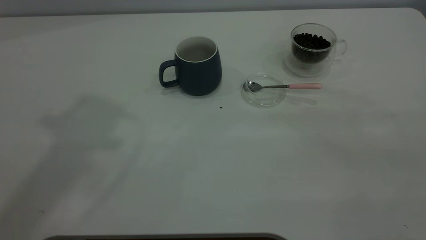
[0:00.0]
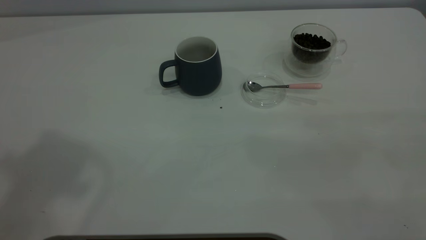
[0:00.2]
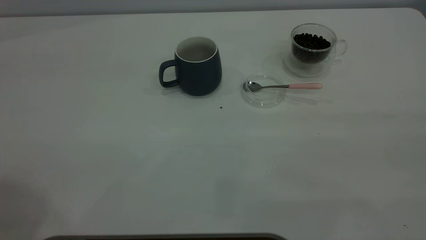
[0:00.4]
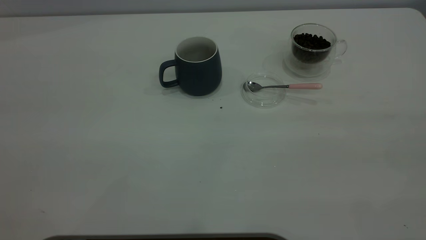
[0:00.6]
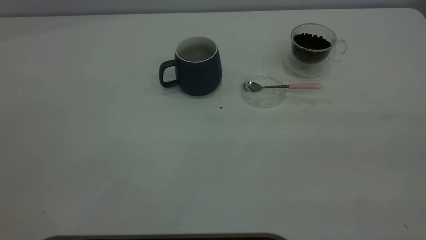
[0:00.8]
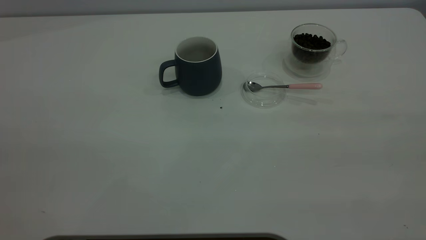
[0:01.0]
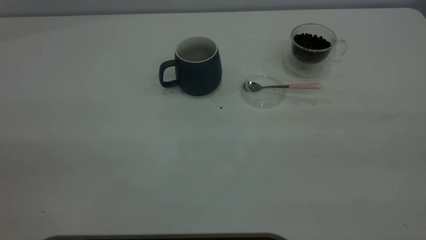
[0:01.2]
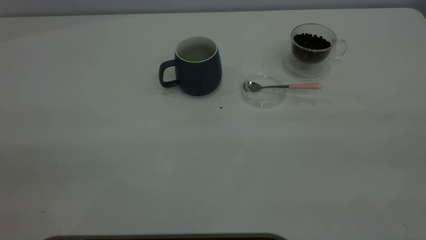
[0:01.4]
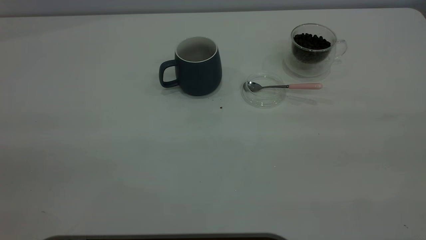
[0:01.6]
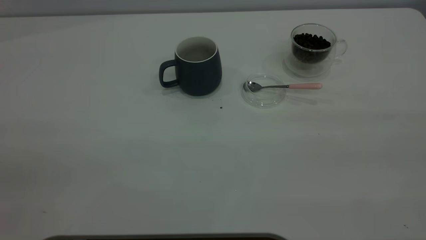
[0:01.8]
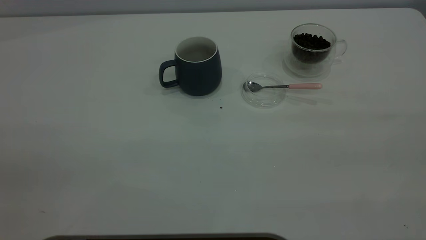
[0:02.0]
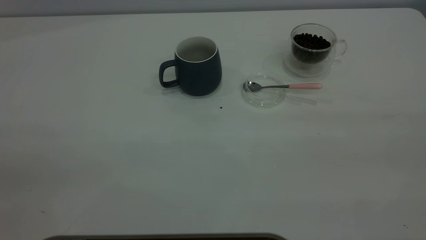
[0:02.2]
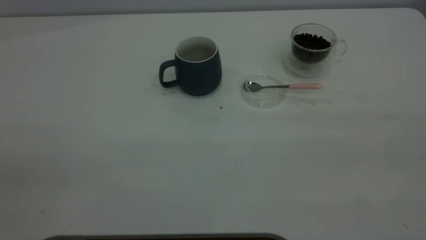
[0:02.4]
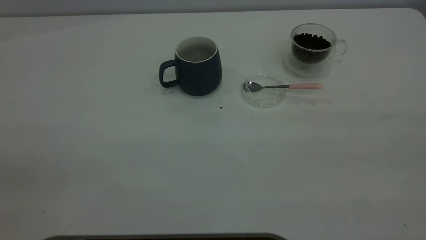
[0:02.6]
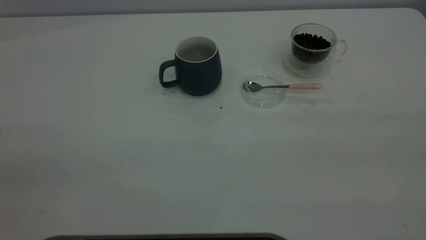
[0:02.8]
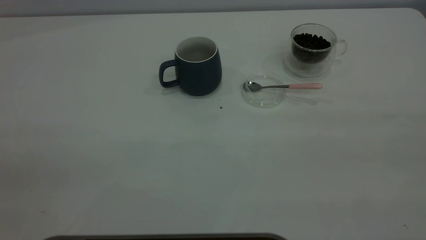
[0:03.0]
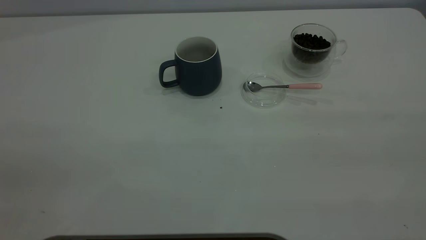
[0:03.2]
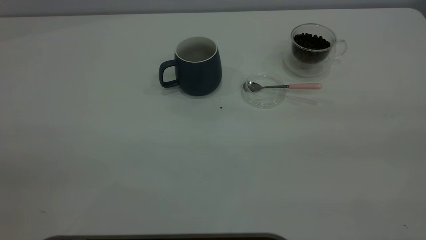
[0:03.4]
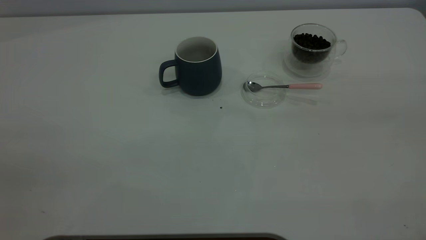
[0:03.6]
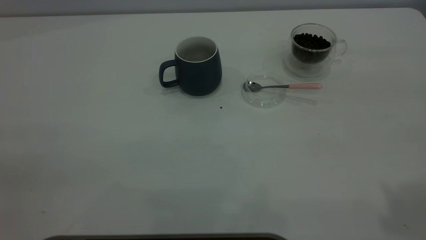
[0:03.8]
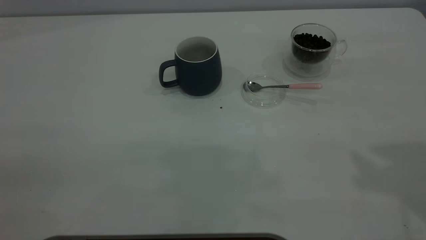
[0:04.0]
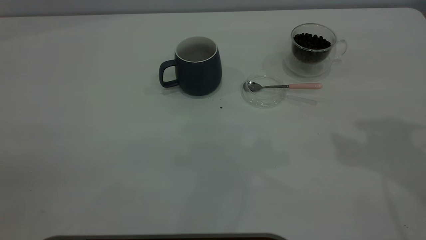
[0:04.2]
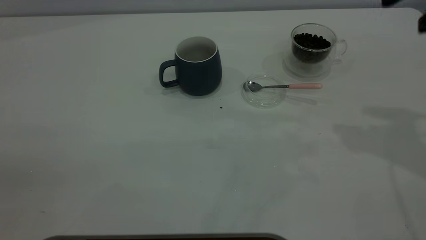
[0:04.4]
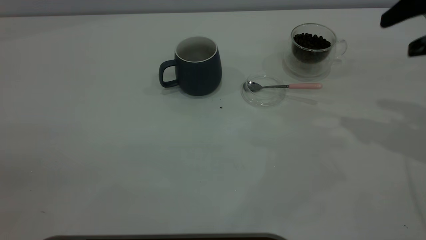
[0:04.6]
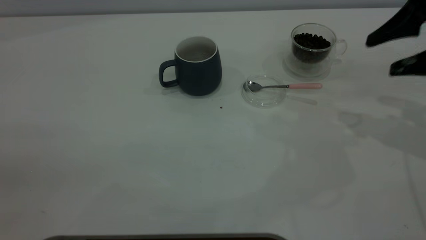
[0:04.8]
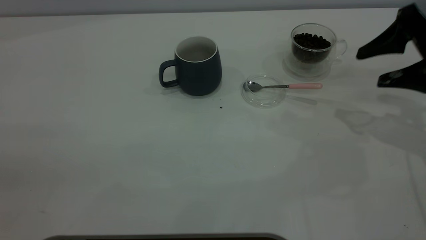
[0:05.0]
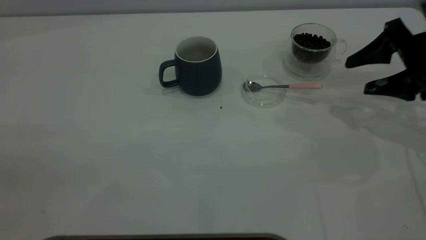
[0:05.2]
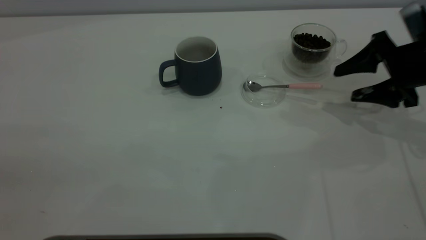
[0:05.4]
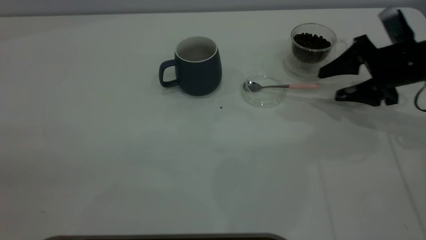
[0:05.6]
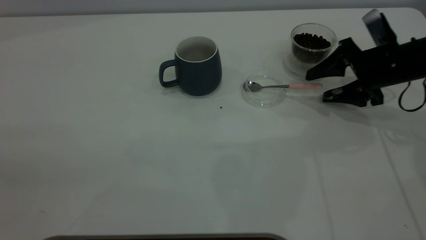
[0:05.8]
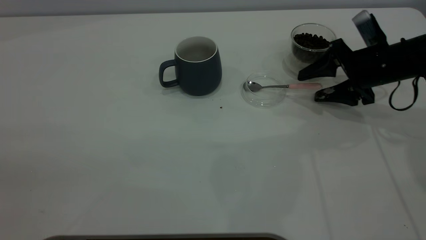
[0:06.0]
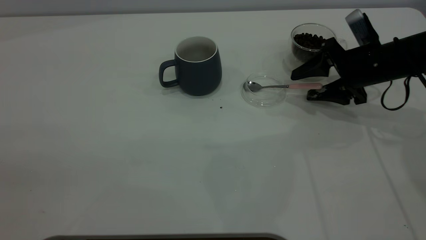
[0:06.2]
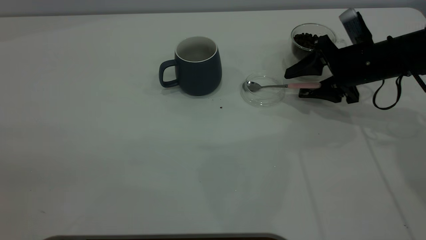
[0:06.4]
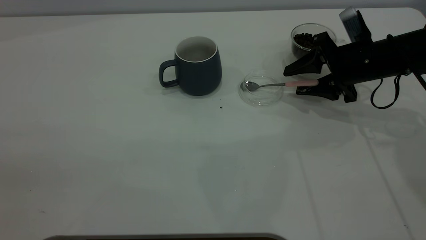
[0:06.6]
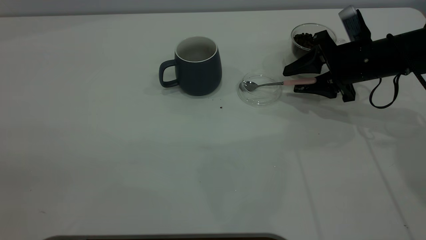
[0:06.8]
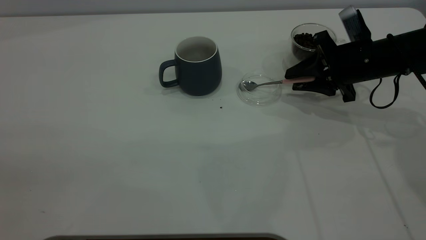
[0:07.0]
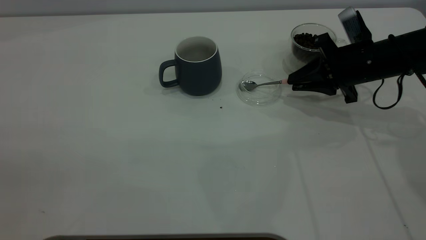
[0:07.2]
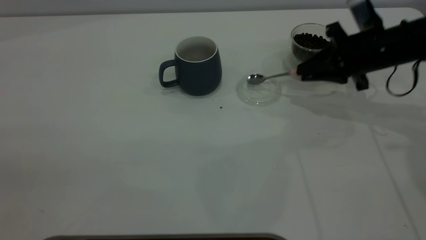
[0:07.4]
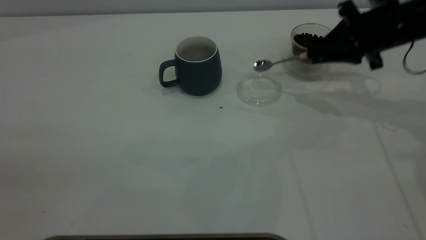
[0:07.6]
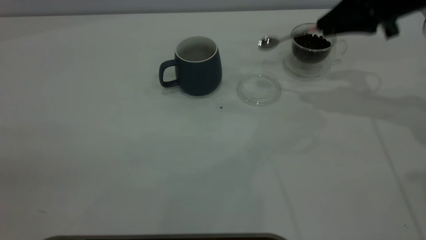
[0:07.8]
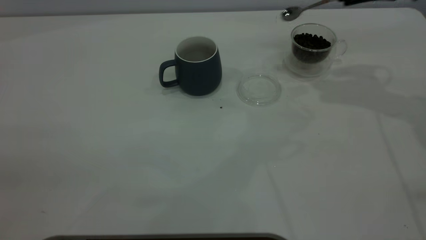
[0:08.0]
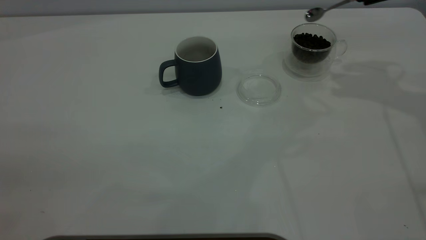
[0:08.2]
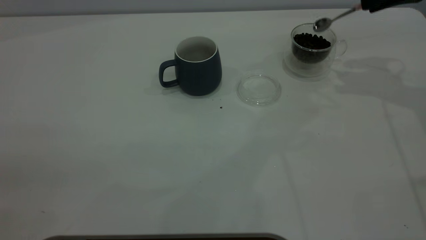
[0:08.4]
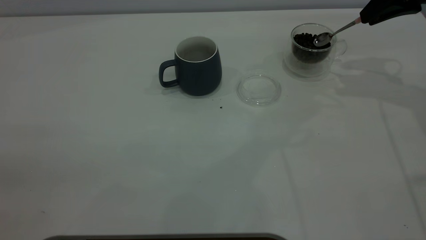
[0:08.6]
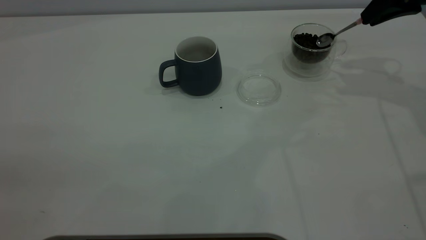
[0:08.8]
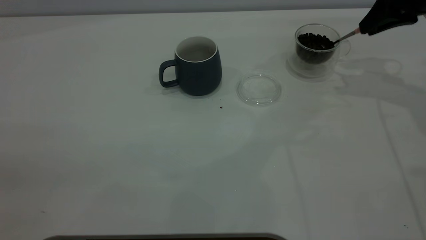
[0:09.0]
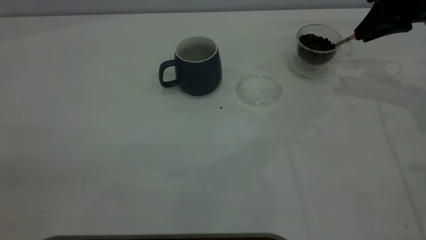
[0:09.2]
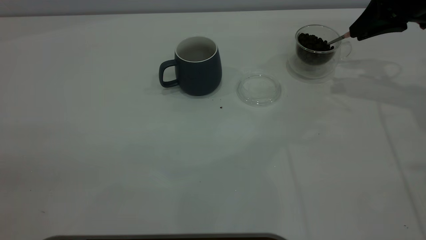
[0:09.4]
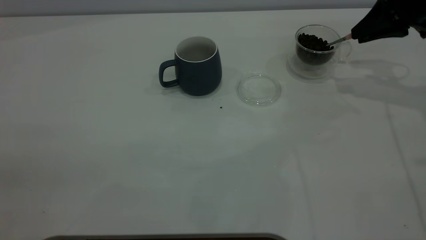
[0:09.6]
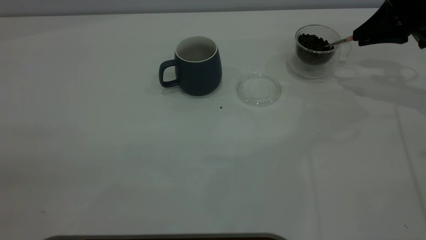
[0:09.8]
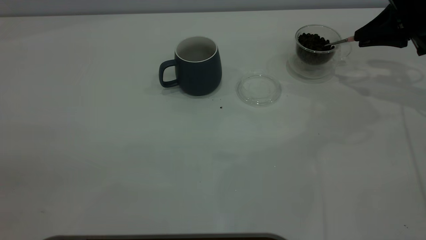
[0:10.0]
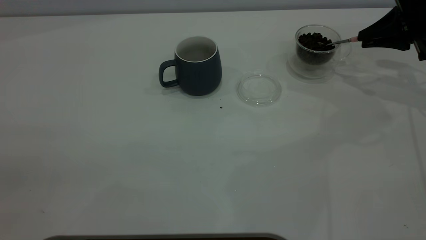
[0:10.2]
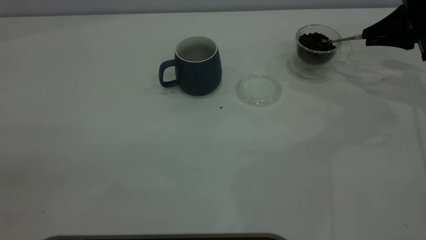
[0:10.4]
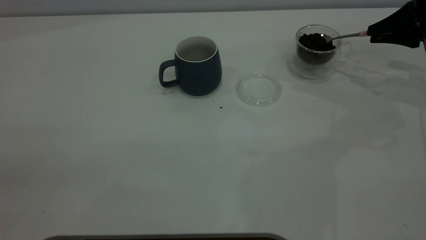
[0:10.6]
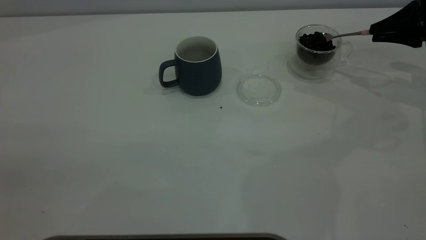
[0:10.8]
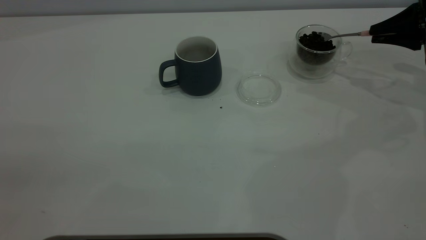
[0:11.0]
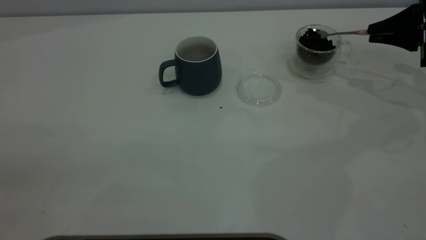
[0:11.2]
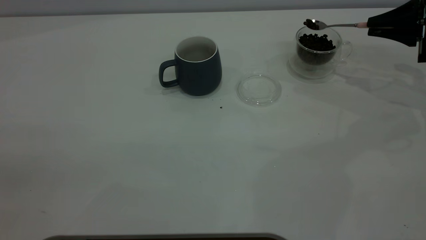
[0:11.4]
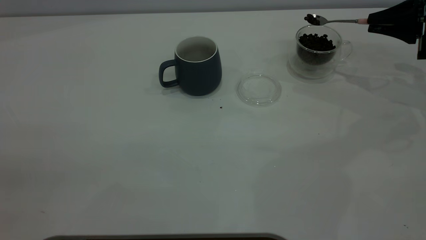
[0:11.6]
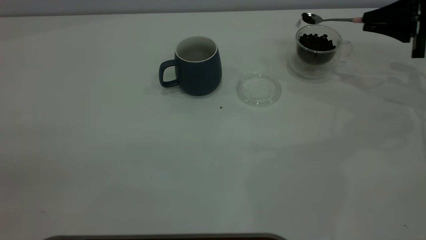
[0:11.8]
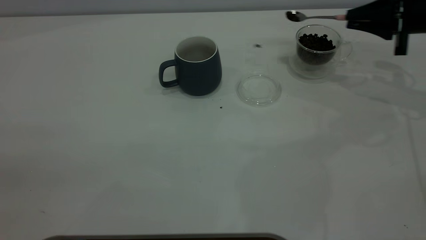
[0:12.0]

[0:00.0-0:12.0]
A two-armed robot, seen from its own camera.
Task of the whole recording: the left gripper place the grey cup in the center of the table, the right gripper take the pink spoon from the cup lid and scoop out the coffee beans from the coffee cup and put them into the grey cup, the right gripper put the spoon back into the cup lid.
Step, 0:00.0 to 0:07.4: Pick up the spoon.
0:04.4 to 0:06.0: The right gripper shifts some 25 cm downward and forward.
0:06.0 to 0:07.6: The right gripper moves upward, roughly 10 cm, and closes its fingers.
0:07.6 to 0:09.0: The right gripper ends up roughly 5 cm from where it was.
0:09.0 to 0:10.4: The right gripper moves to the right and downward, about 10 cm.
0:10.4 to 0:12.0: There are only small adjustments of the grippers.

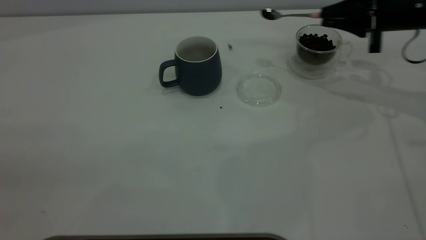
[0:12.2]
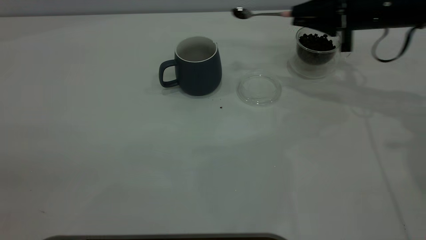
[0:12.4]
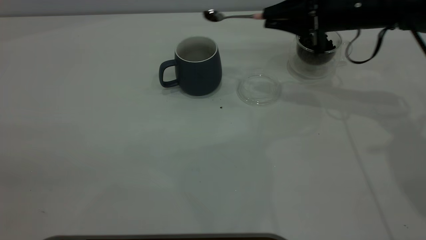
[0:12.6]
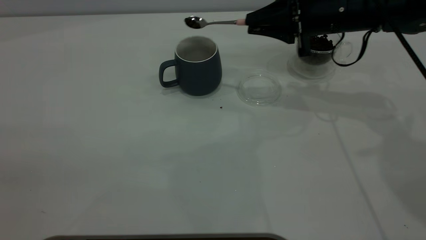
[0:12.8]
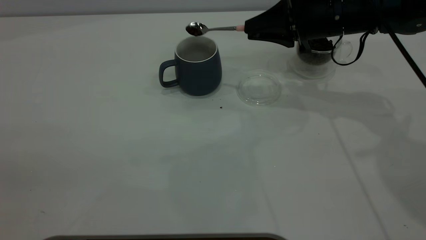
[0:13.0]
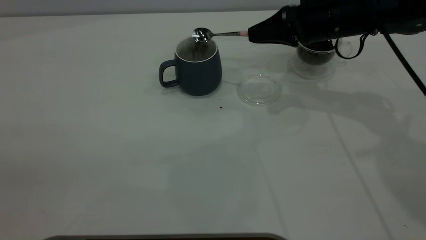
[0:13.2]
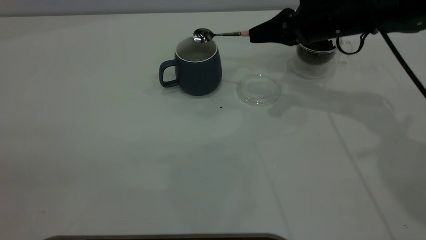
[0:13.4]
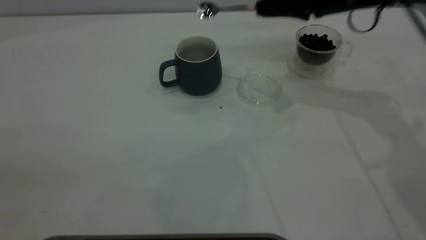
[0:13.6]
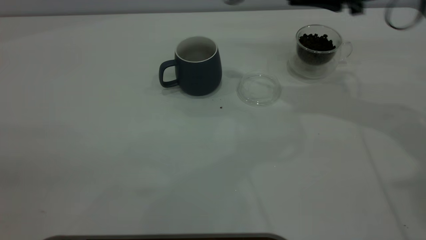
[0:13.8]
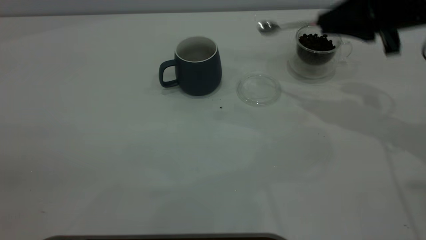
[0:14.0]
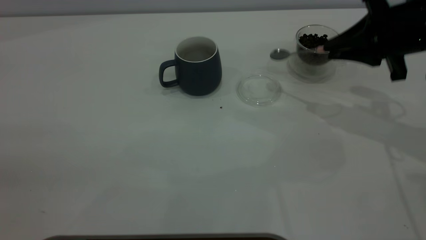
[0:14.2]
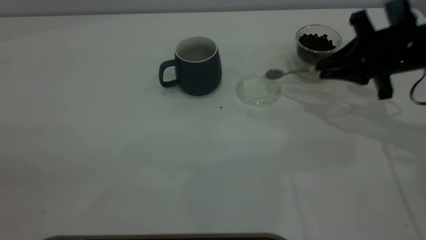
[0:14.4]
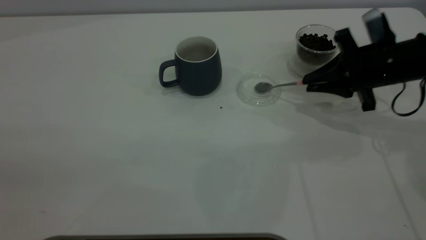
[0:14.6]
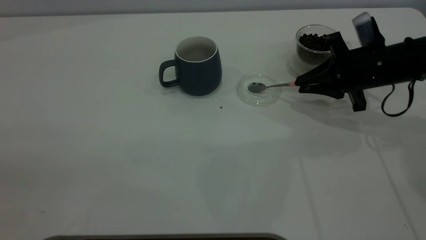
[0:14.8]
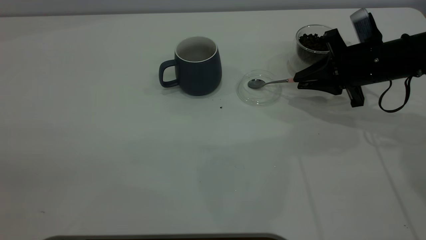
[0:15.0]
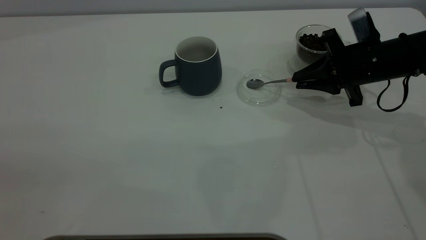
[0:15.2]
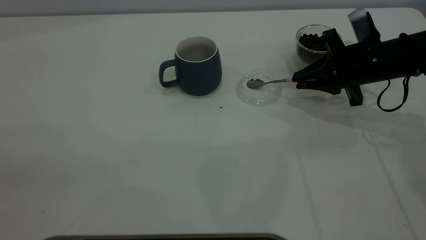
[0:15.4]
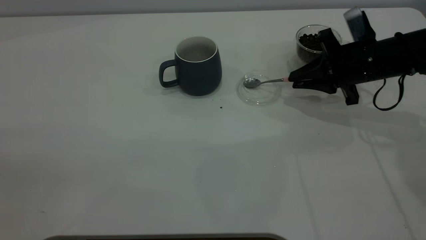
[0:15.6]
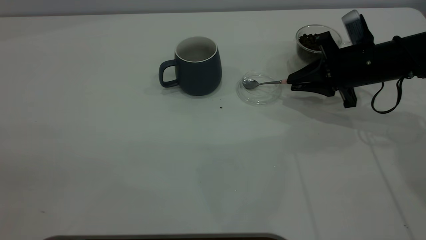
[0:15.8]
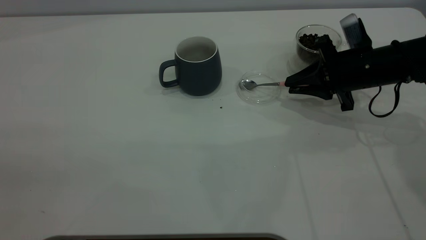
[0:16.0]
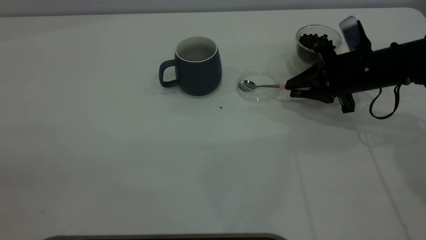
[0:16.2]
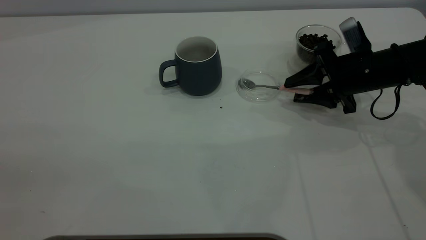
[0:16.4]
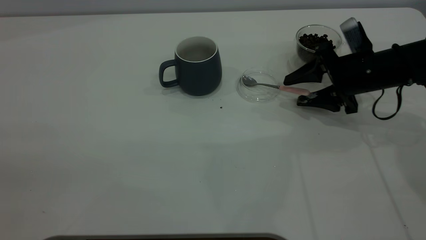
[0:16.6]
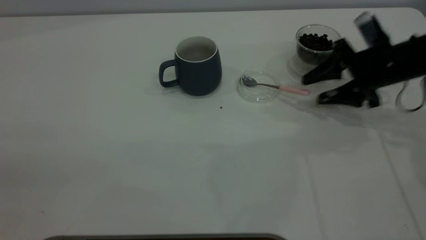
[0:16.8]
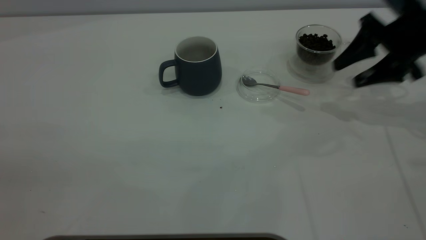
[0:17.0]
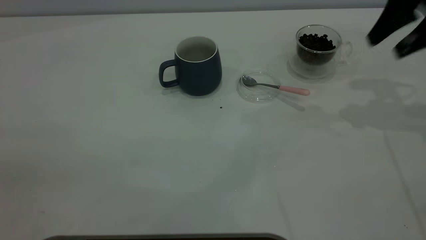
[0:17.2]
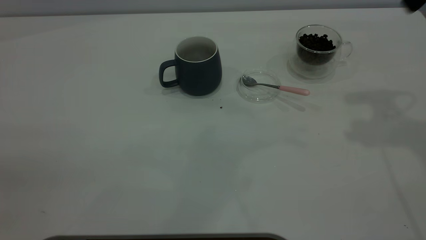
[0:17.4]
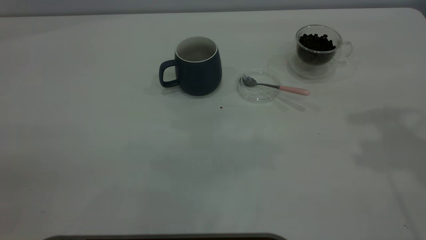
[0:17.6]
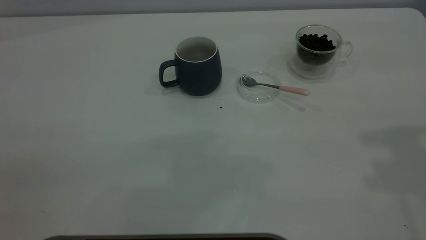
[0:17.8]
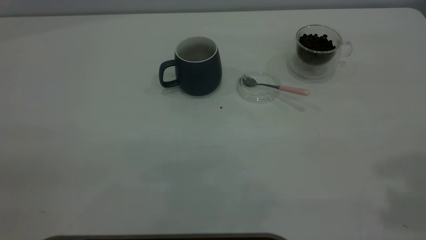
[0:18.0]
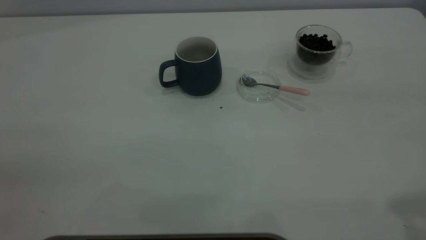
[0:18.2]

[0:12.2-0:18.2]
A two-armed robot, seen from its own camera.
Task of the whole recording: the left gripper place the grey cup in the center of the table, the right gripper take the pink spoon from the cup lid and scoop out the coffee beans from the coffee cup and put them into the grey cup, the right gripper put the spoon back into the cup lid.
Step, 0:13.6 to 0:16.8: Place the spoon back in its original place.
0:12.2 to 0:13.8: The right gripper is displaced upward by some 5 cm.
0:13.8 to 0:15.2: The right gripper heads downward, covering approximately 15 cm.
0:15.2 to 0:16.6: The right gripper opens.
0:16.6 to 0:18.2: The right gripper moves upward and backward, some 40 cm.
